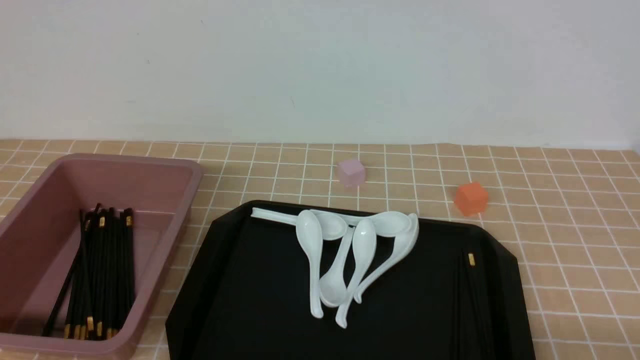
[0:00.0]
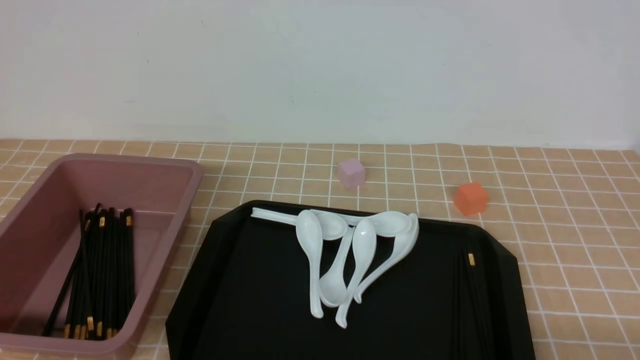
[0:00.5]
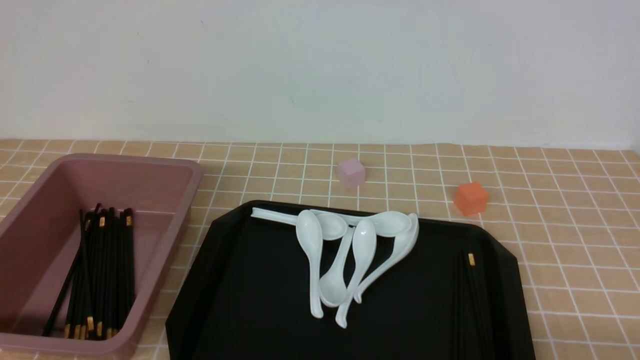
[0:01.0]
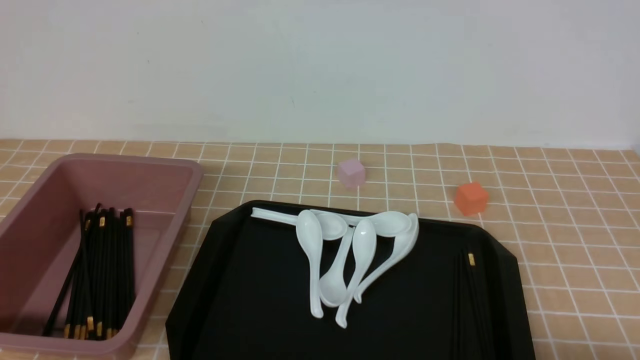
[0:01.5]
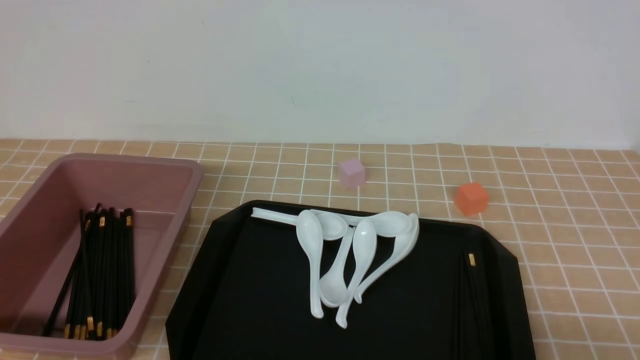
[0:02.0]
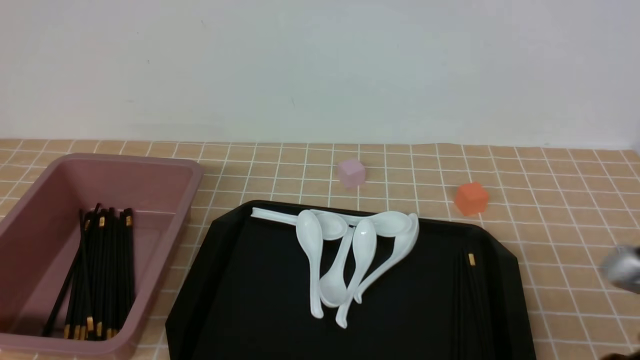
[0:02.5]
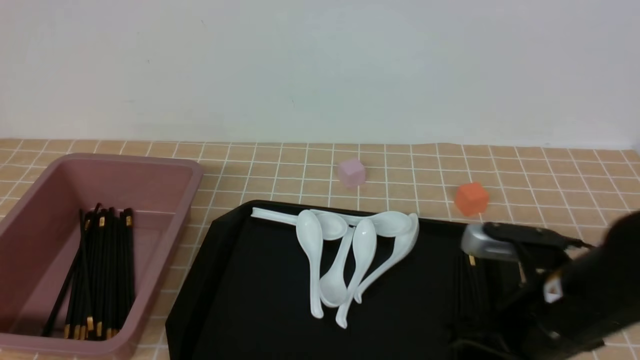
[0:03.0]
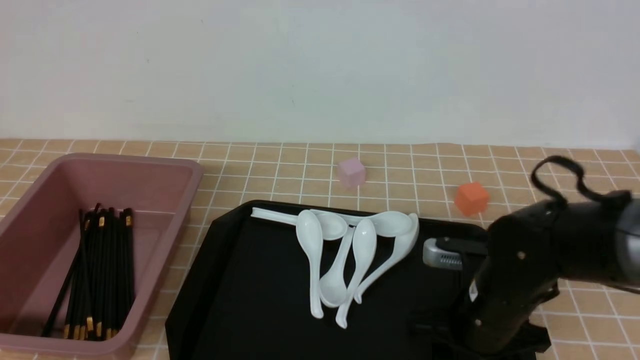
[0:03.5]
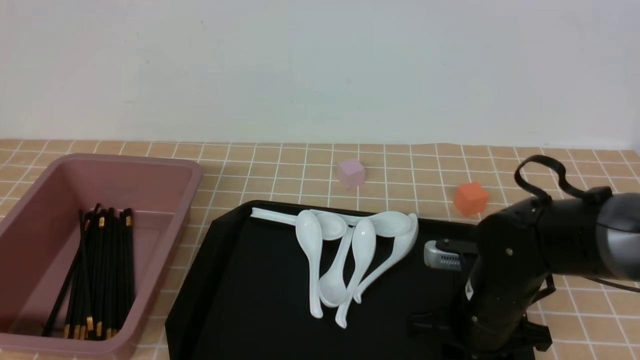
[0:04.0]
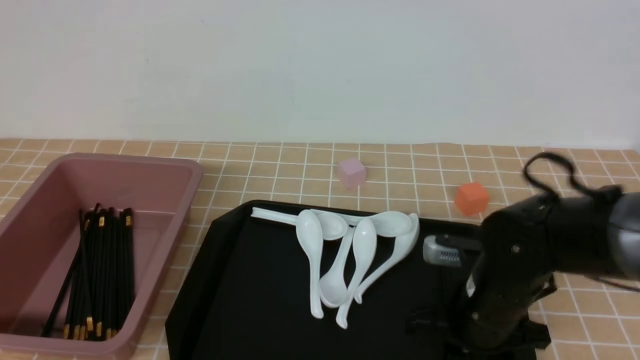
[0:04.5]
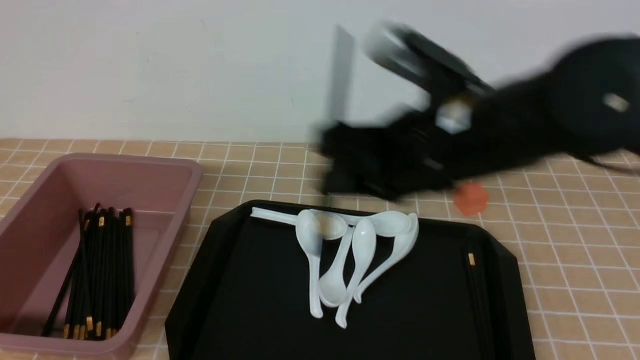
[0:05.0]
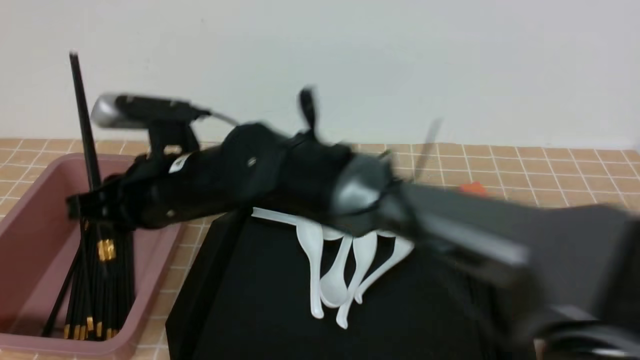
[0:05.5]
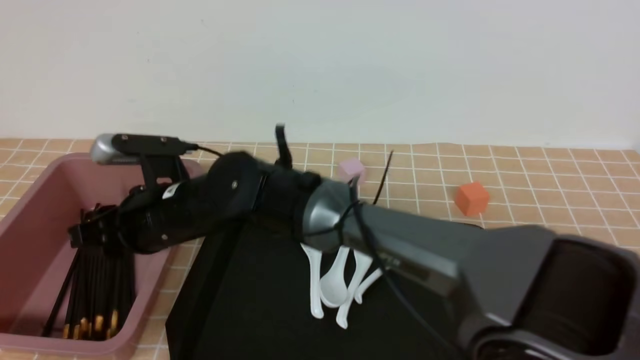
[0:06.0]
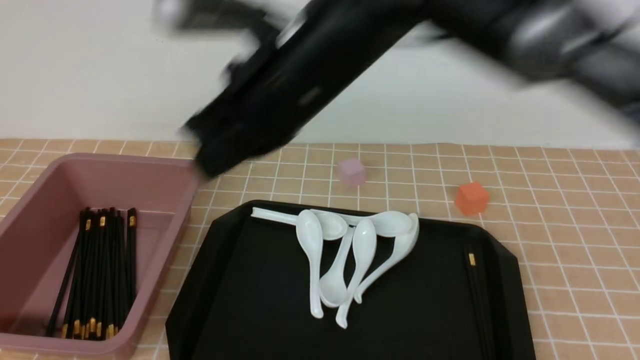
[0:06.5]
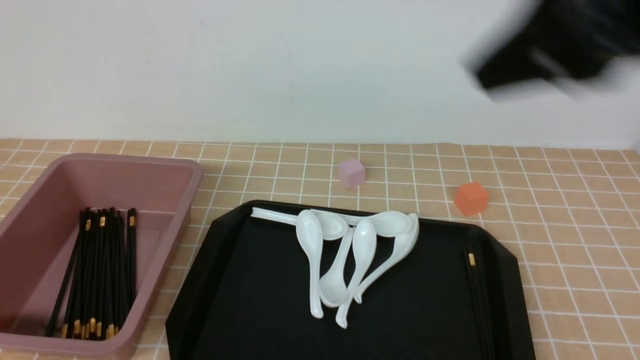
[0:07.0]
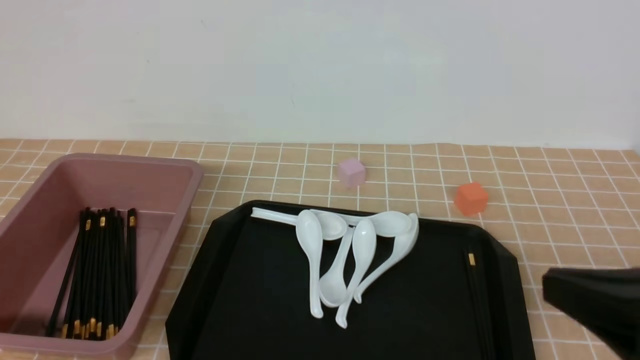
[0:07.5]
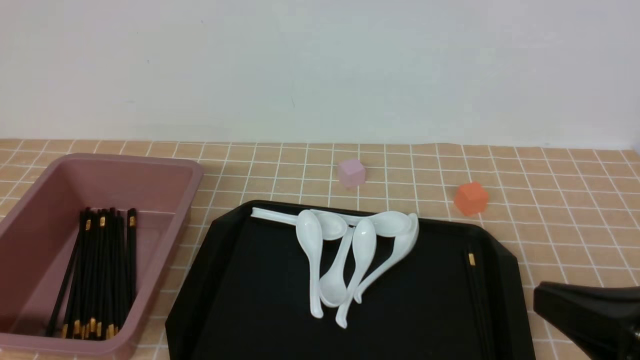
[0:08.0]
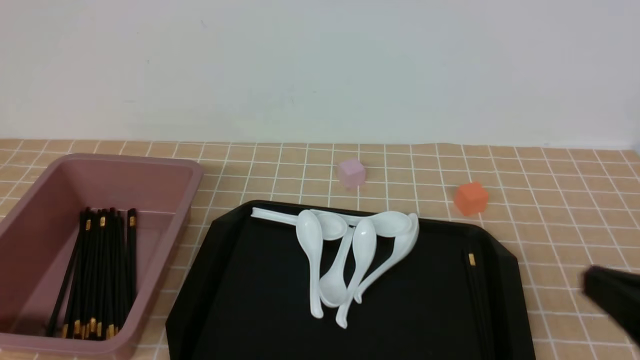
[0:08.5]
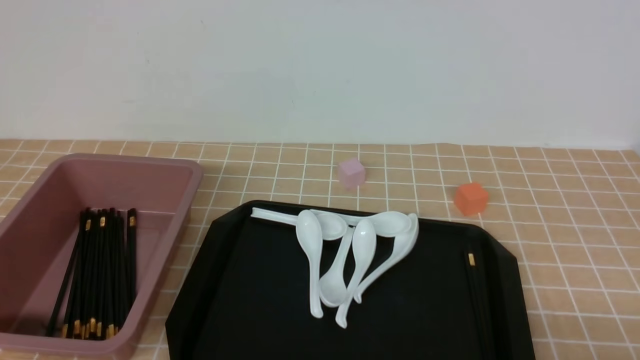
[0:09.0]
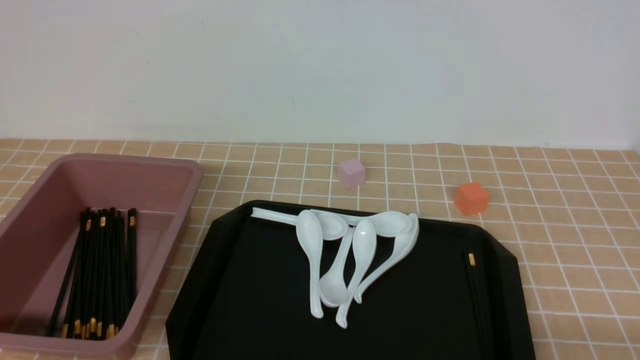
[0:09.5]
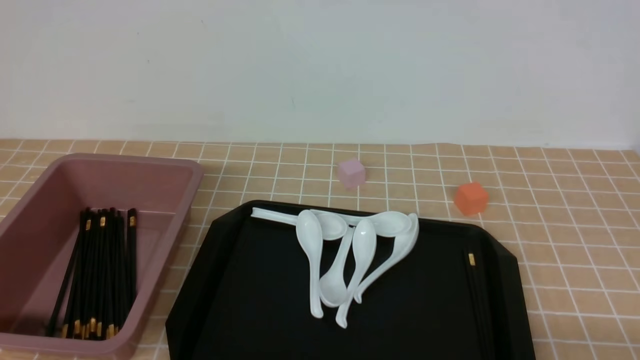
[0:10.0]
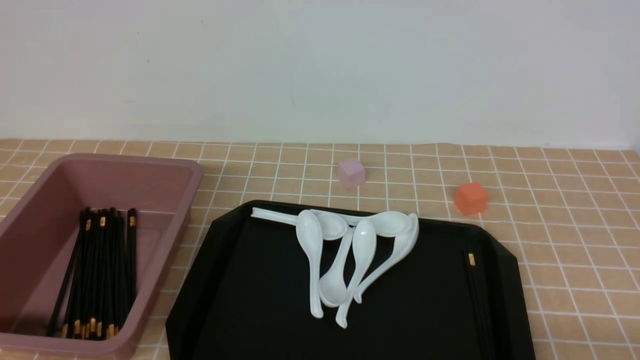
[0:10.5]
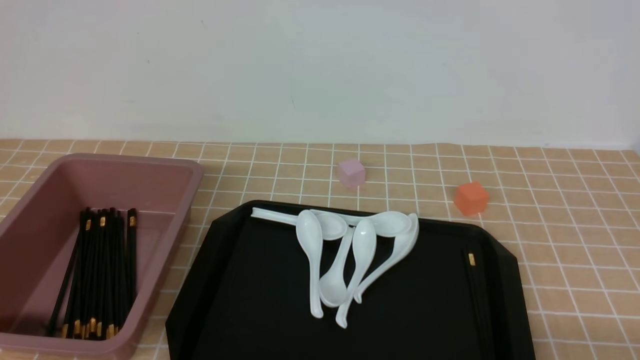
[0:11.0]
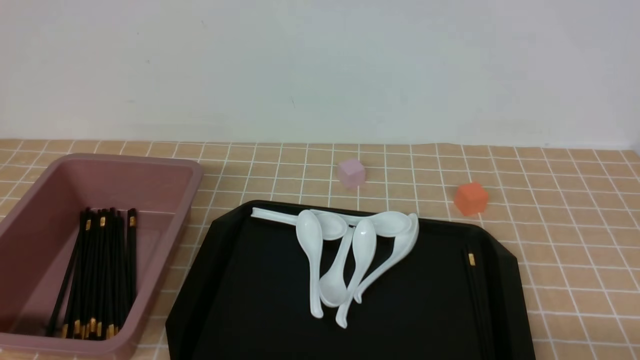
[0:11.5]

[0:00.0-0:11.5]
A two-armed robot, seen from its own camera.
Step, 0:00.0 to 0:04.5: use the right arm to grab a pair of chopsticks.
Step, 0:05.0 to 0:06.0: use the right arm to put the chopsticks into the lunch box.
0:02.0 to 0:04.0: The right gripper shifts roughly 25 cm forward, to the left and downward, and opens its fingers.
0:04.0 to 0:06.0: The right gripper shifts approximately 30 cm to the left.
0:06.0 to 0:07.5: The right gripper shifts about 40 cm to the right and backward, and closes its fingers.
0:07.5 to 0:09.5: The right gripper heads downward and to the right, covering approximately 15 cm.
0:09.5 to 0:11.5: Both grippers stay put.
